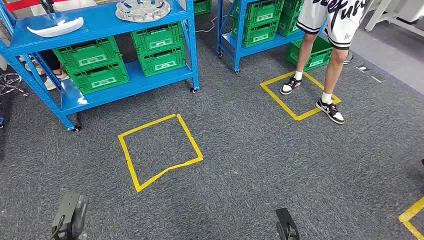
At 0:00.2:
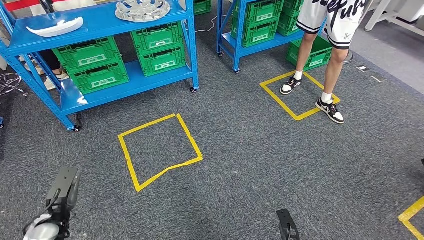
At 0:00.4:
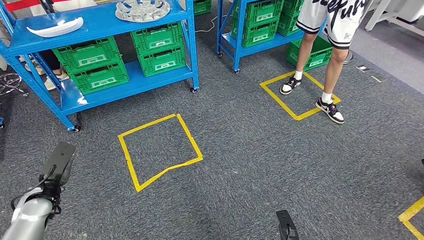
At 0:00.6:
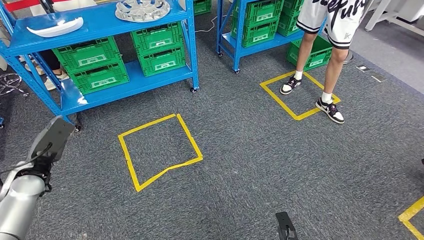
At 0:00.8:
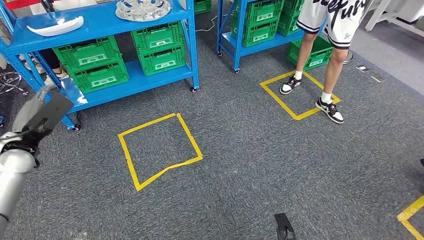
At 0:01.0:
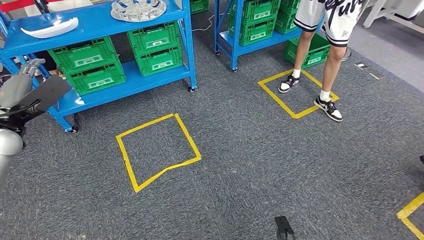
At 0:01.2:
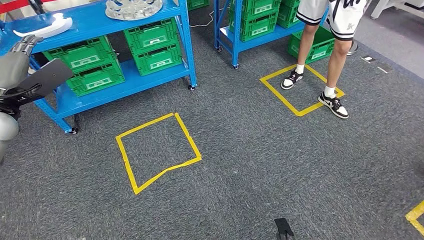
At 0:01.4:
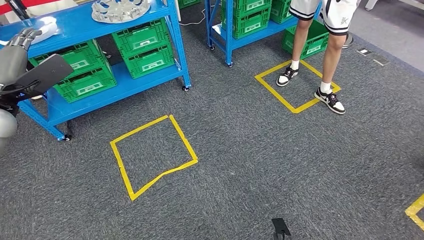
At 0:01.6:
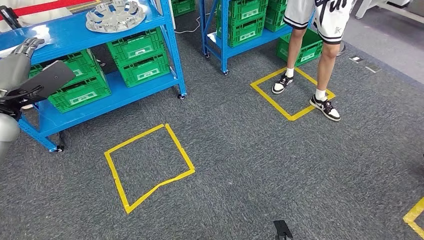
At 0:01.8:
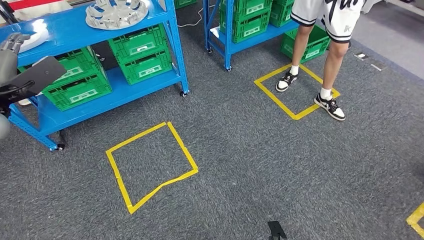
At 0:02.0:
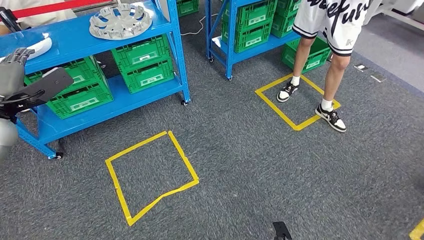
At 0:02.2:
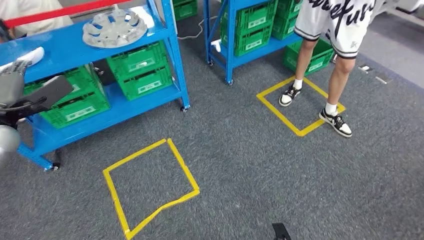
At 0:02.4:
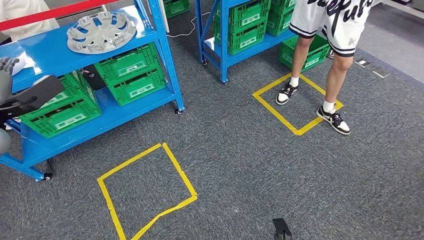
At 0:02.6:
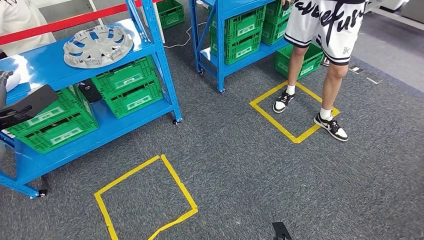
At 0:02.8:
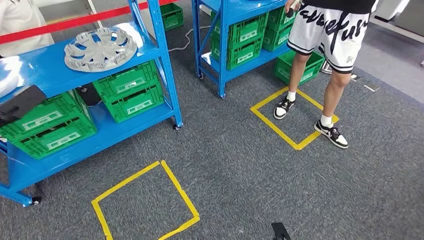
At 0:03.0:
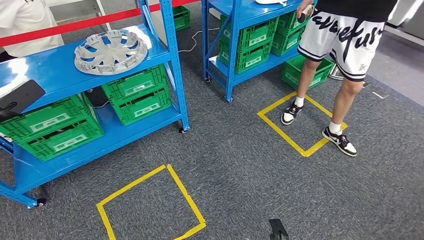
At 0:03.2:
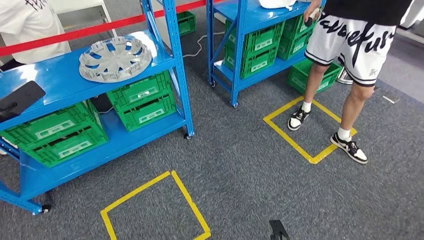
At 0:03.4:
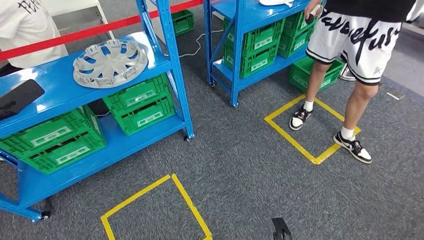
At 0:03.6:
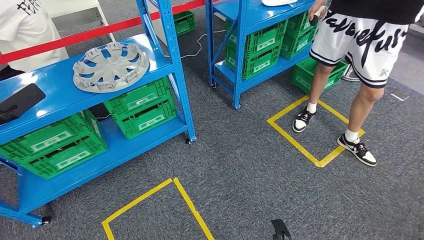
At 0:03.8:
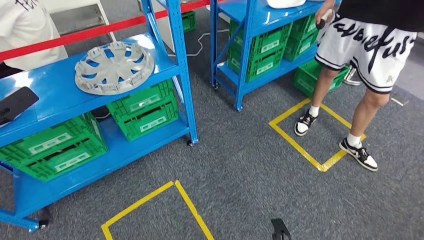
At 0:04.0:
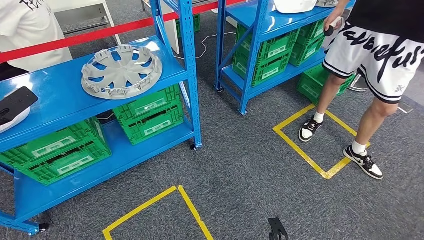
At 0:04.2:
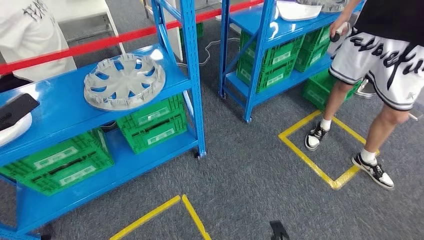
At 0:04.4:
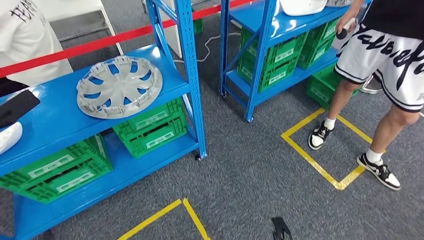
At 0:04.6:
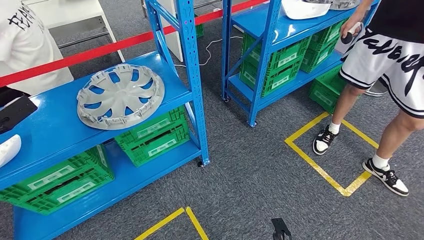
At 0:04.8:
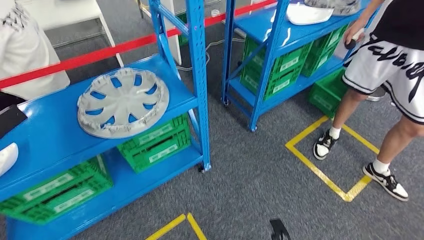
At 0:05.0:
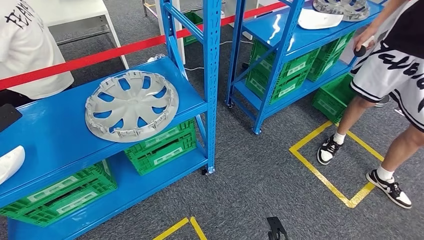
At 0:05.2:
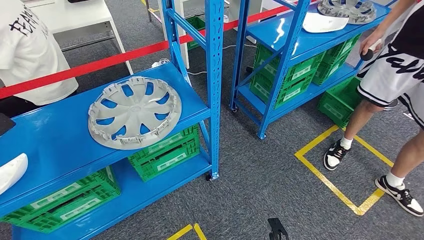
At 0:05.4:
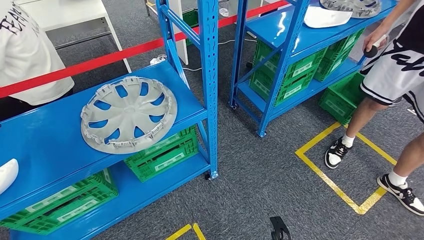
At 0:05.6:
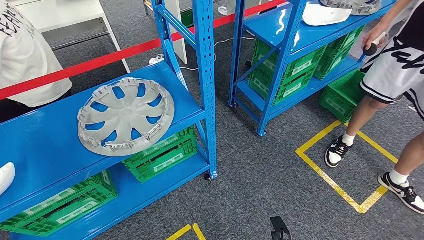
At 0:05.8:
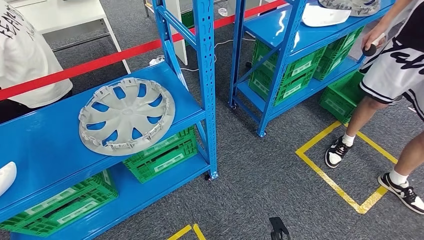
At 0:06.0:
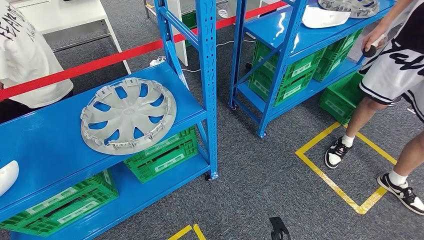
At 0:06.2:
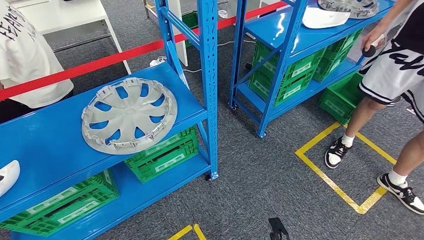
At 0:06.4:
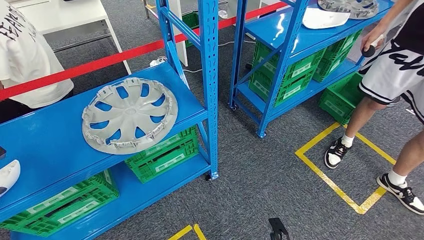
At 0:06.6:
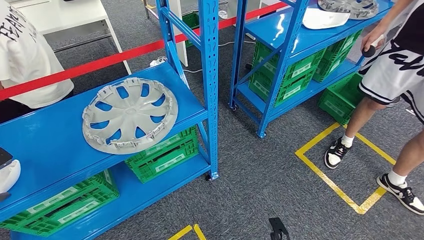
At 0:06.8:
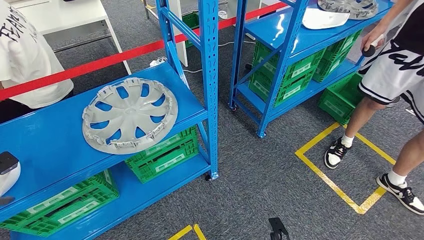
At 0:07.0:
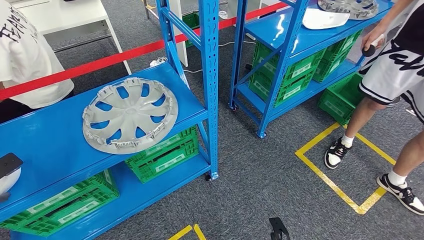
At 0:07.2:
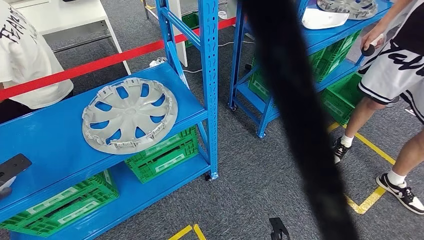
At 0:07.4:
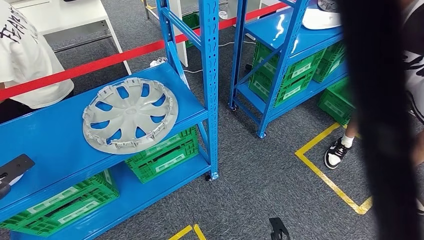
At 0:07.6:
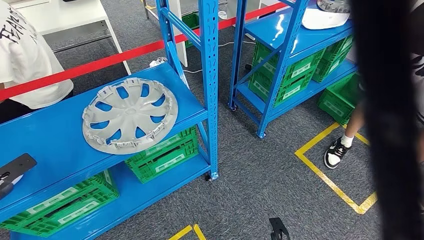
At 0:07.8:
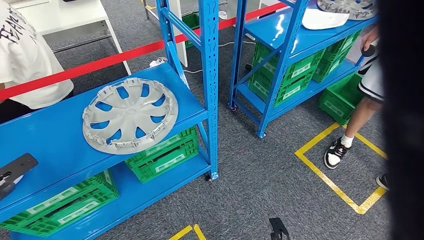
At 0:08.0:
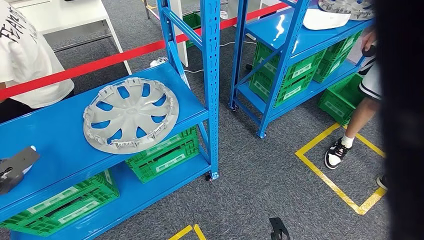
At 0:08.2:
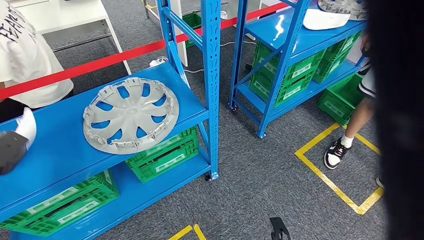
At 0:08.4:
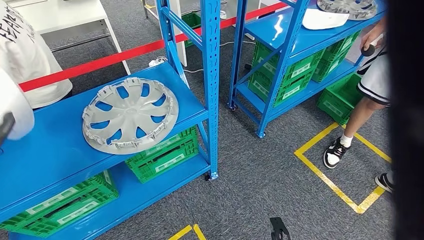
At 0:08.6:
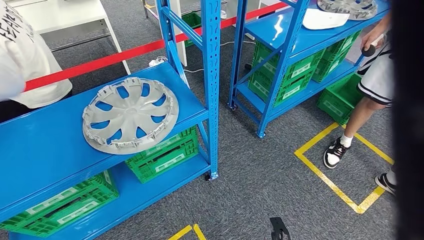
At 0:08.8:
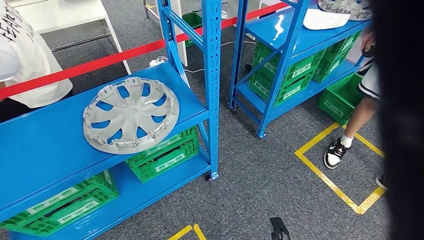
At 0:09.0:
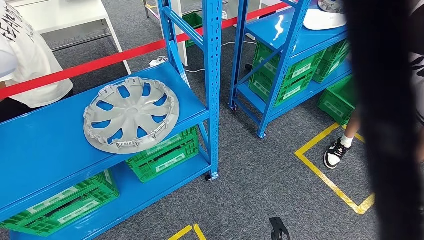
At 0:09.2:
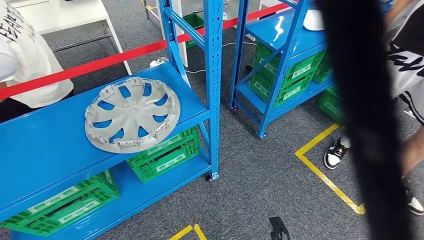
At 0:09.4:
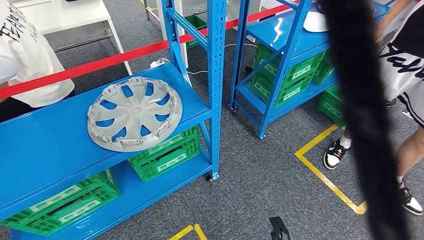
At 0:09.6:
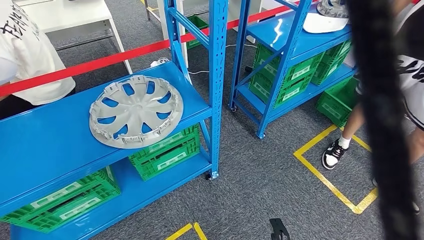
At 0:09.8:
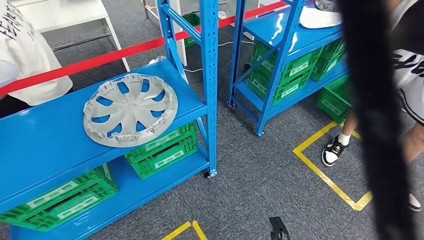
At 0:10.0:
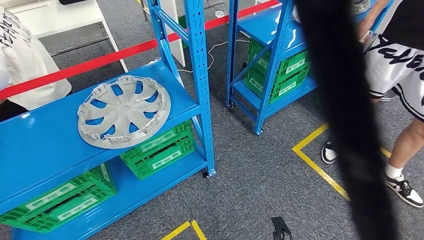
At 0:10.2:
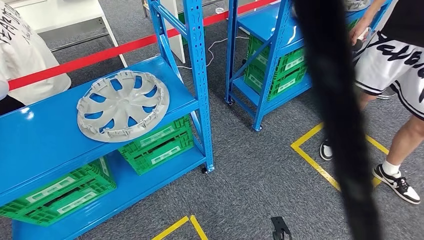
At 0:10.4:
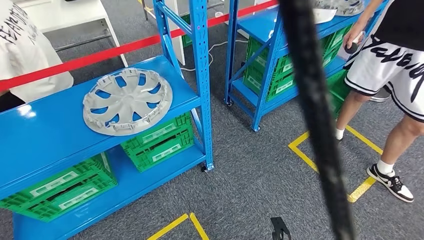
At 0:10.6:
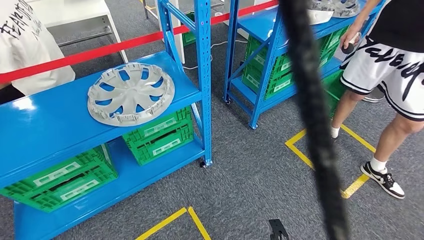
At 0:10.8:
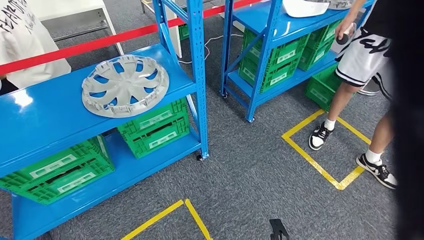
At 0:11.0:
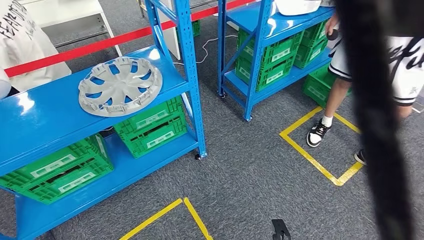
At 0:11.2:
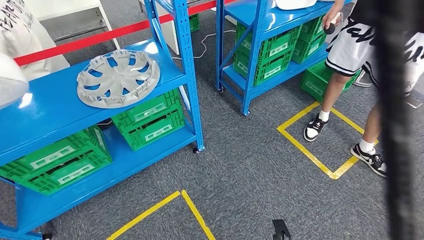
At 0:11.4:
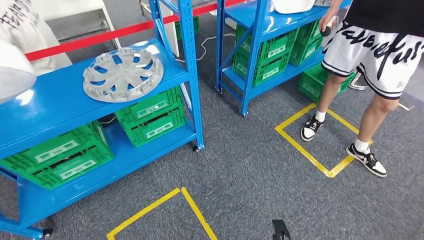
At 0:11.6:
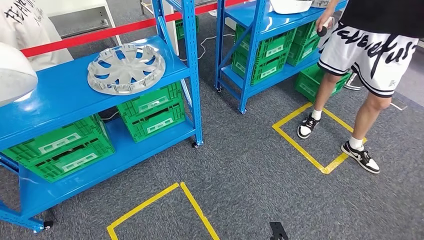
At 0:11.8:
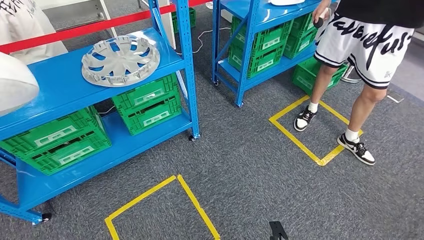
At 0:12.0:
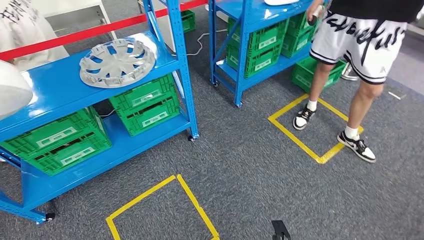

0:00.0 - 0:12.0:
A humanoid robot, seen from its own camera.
Step, 0:00.0 - 0:09.6: Take small components from the rack.
0:06.0 - 0:07.6: The left hand moves downward, about 5 cm.
0:07.6 - 0:09.0: The left hand moves upward and to the right, some 20 cm.

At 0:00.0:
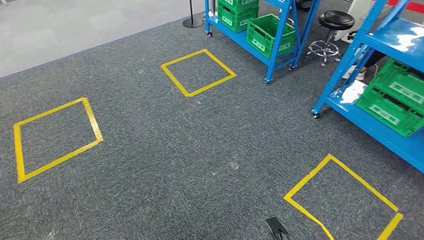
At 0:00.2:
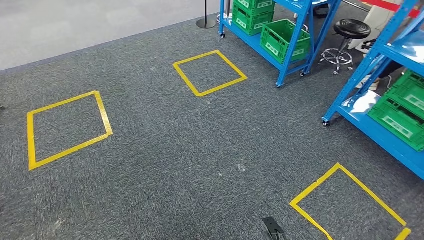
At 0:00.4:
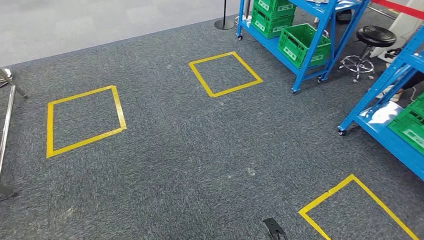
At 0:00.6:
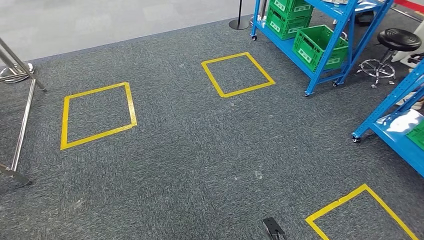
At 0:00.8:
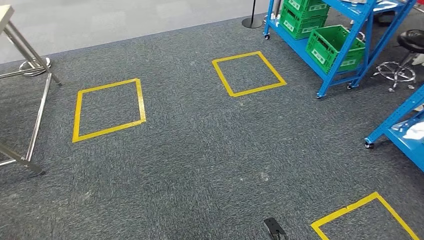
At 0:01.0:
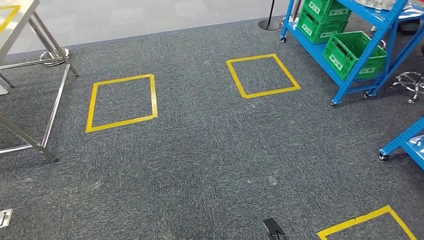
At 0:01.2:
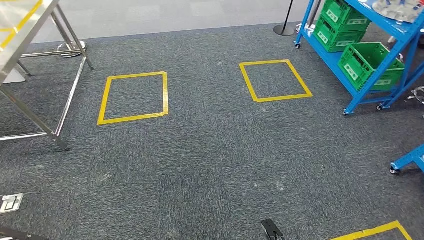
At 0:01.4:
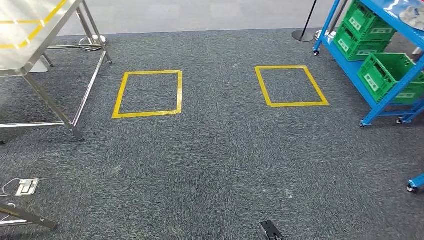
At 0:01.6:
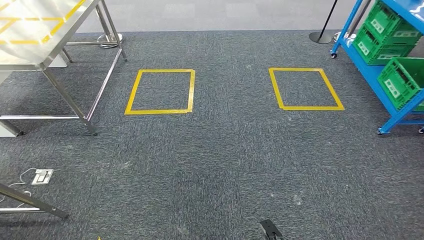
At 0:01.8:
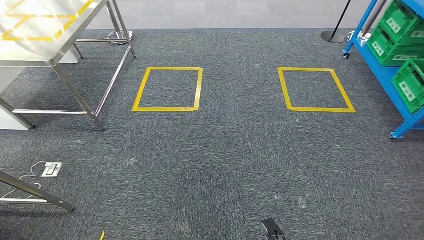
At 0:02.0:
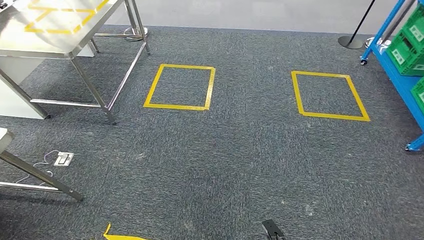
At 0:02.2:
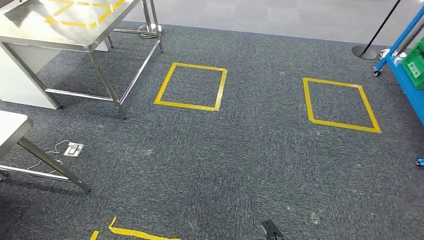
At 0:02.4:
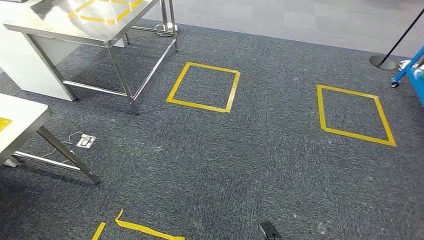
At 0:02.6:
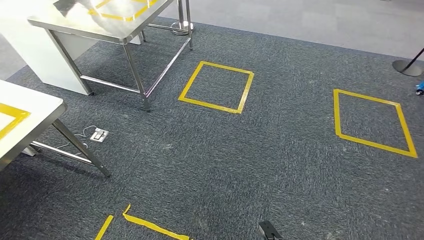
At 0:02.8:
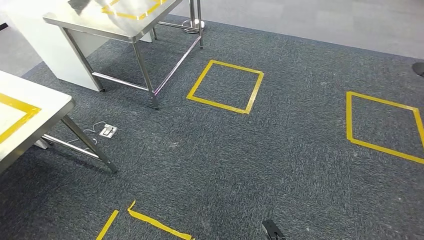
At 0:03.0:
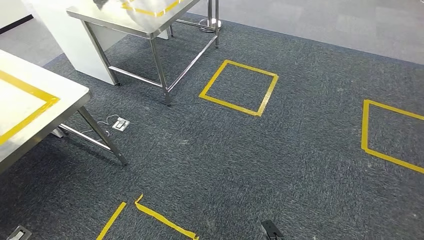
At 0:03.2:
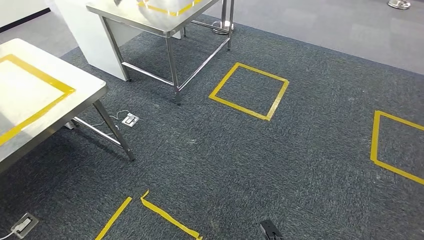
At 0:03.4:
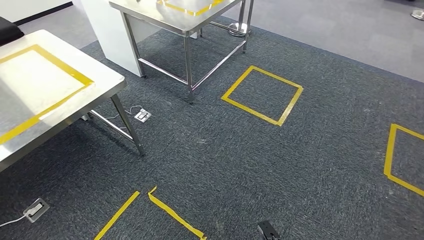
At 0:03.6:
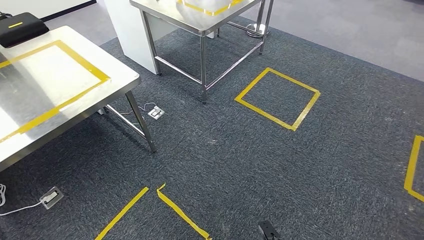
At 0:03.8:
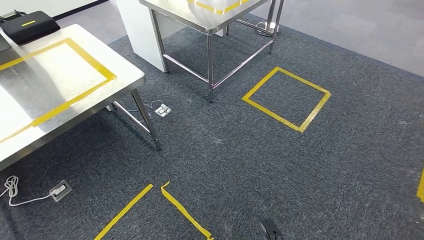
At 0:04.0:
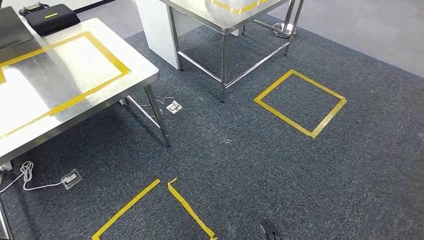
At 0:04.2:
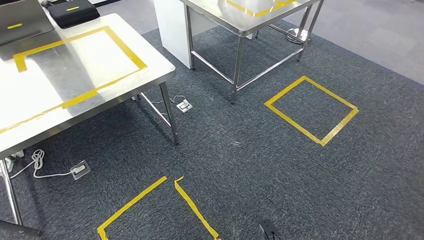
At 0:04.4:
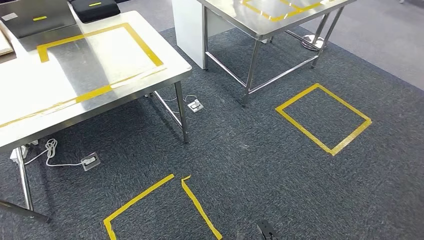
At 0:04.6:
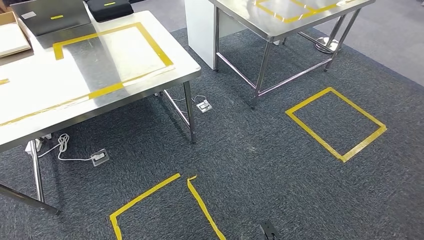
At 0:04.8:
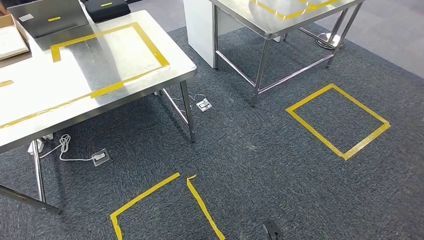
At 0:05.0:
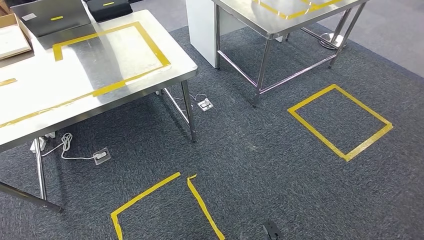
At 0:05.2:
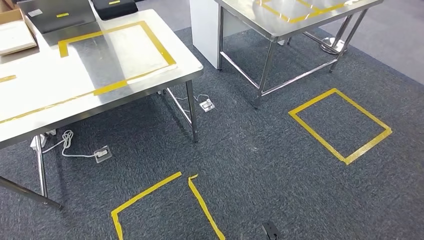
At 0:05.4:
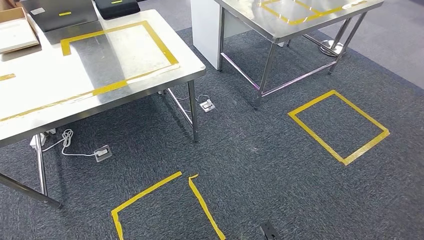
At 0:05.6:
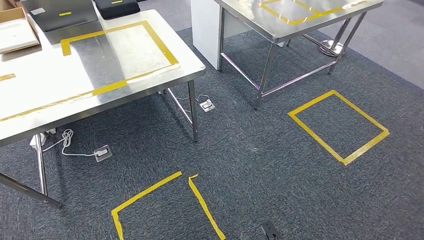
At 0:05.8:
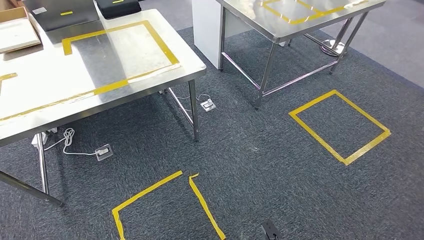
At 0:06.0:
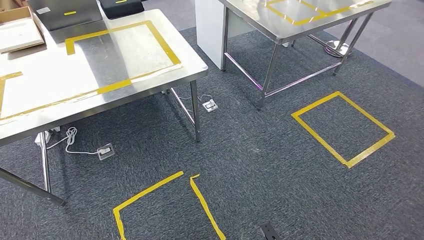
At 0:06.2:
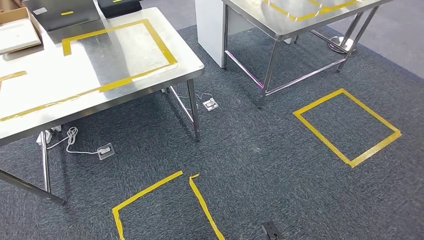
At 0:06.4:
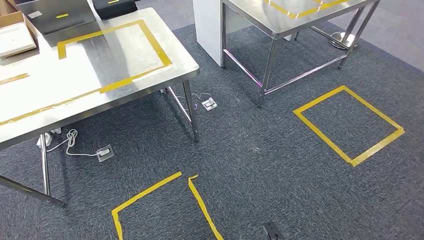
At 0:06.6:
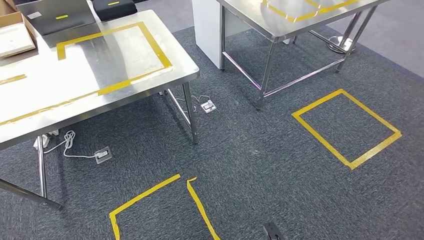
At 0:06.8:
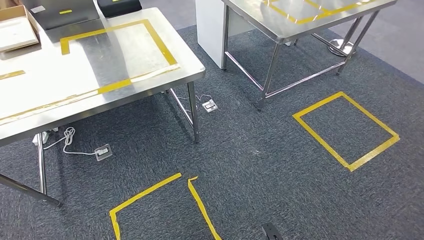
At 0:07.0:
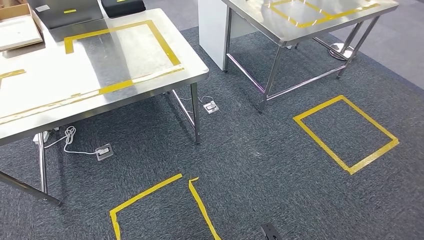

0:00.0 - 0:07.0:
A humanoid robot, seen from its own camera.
0:05.6 - 0:07.0: Both hands stay about where they are.
